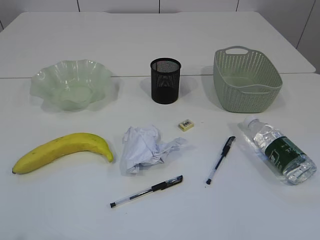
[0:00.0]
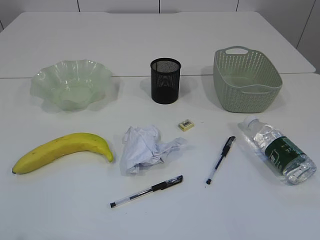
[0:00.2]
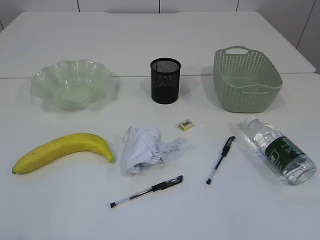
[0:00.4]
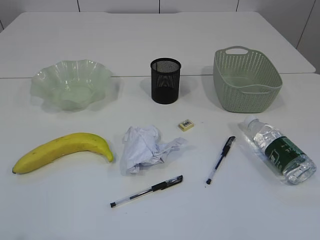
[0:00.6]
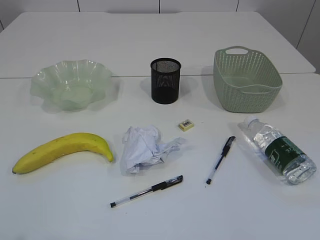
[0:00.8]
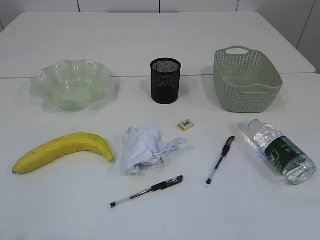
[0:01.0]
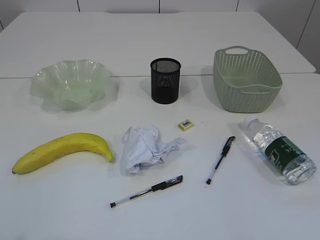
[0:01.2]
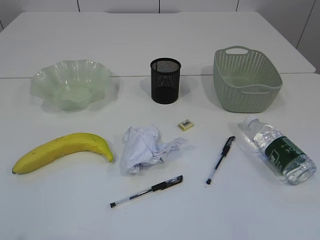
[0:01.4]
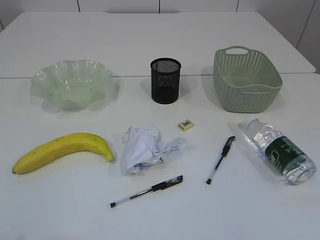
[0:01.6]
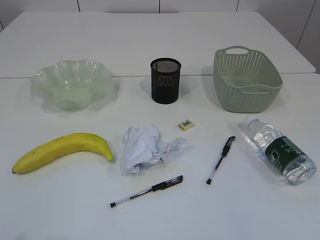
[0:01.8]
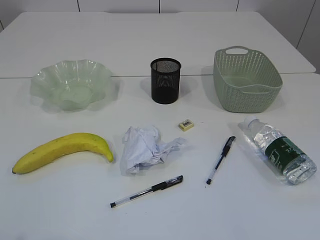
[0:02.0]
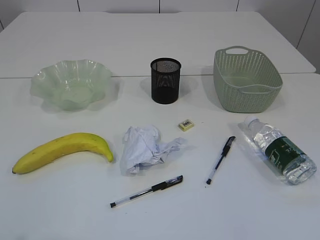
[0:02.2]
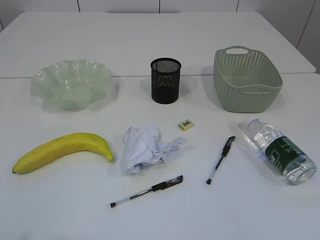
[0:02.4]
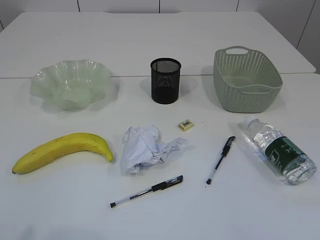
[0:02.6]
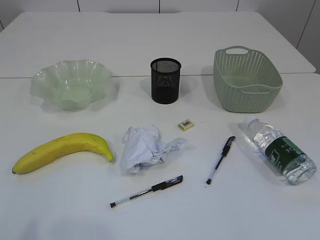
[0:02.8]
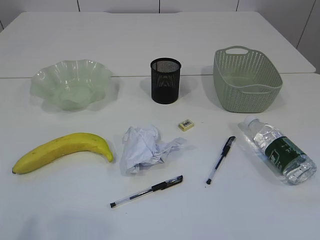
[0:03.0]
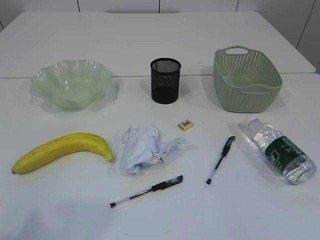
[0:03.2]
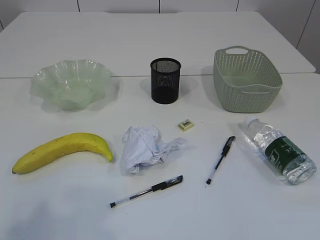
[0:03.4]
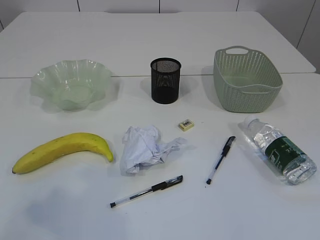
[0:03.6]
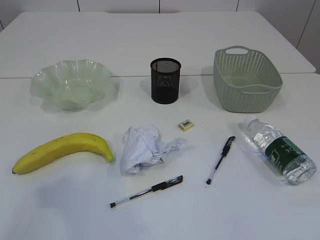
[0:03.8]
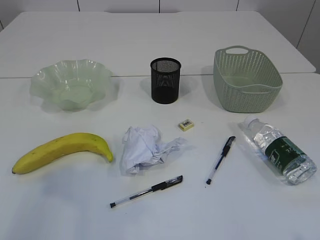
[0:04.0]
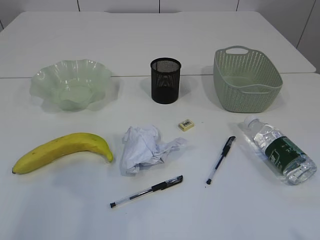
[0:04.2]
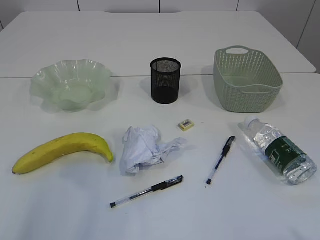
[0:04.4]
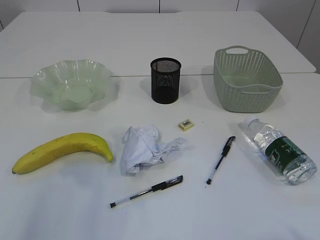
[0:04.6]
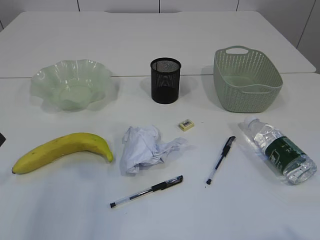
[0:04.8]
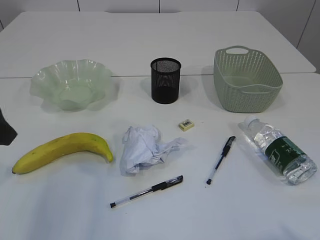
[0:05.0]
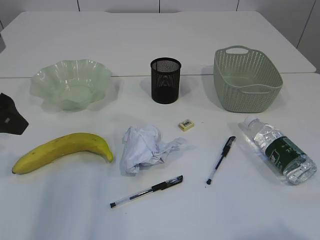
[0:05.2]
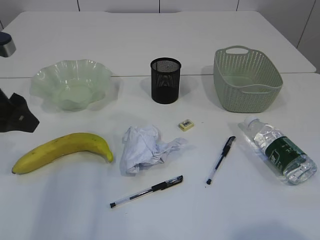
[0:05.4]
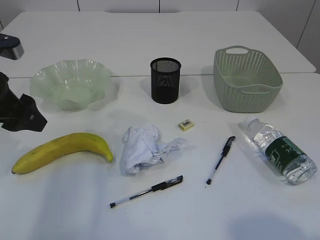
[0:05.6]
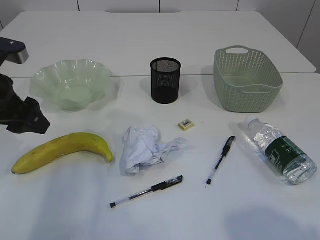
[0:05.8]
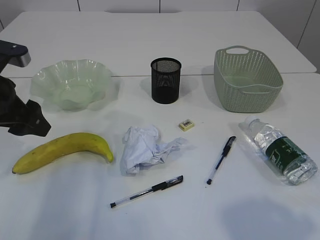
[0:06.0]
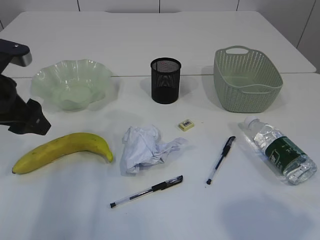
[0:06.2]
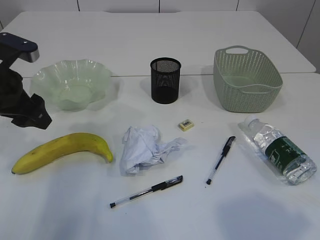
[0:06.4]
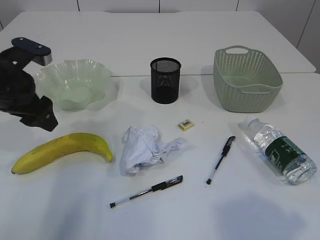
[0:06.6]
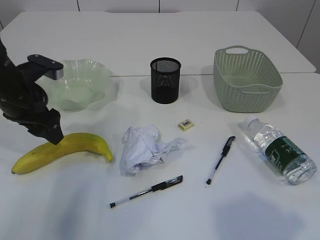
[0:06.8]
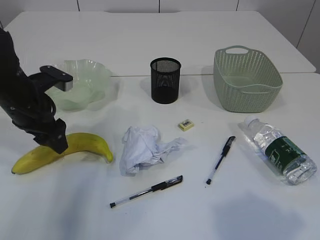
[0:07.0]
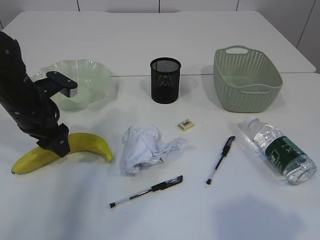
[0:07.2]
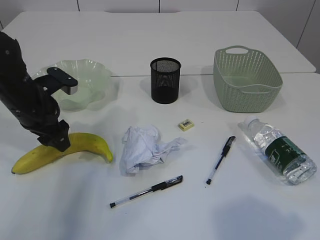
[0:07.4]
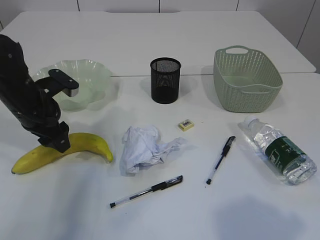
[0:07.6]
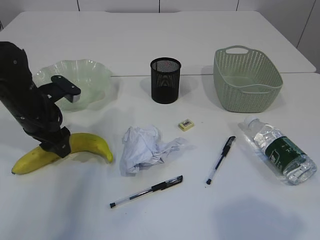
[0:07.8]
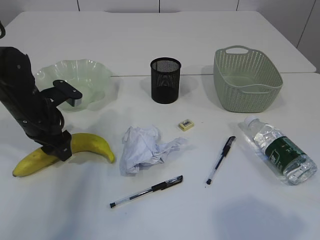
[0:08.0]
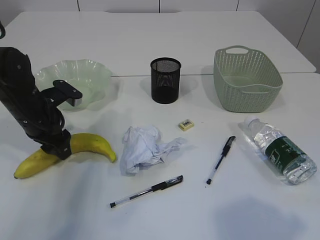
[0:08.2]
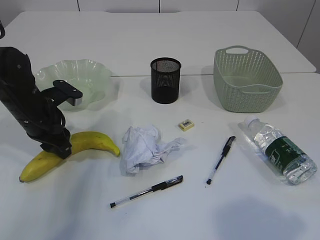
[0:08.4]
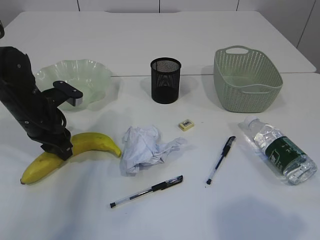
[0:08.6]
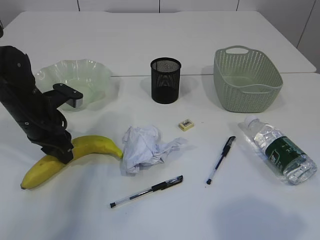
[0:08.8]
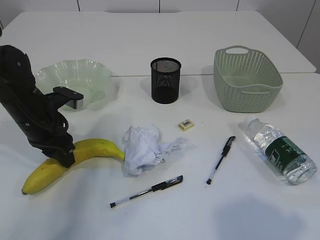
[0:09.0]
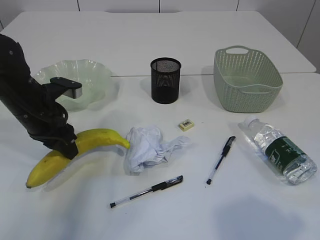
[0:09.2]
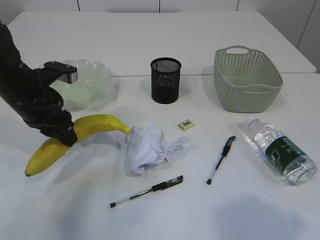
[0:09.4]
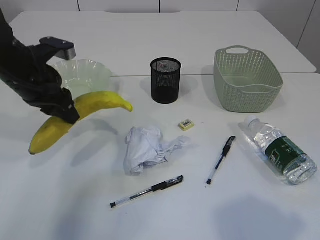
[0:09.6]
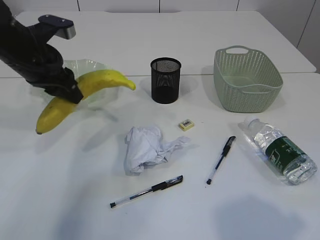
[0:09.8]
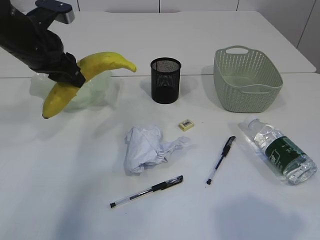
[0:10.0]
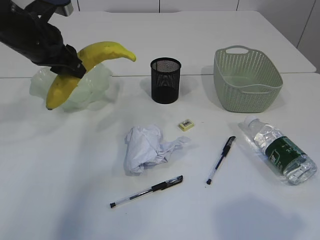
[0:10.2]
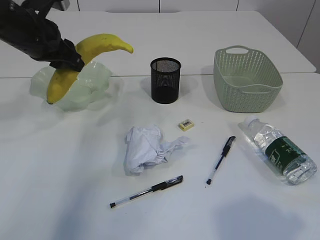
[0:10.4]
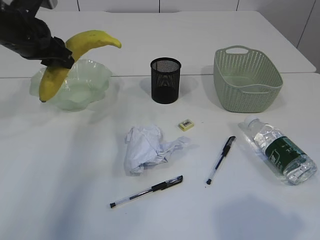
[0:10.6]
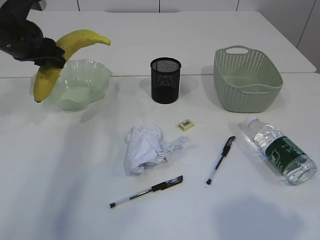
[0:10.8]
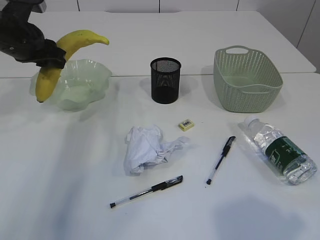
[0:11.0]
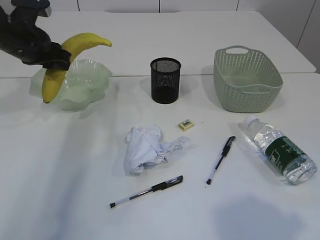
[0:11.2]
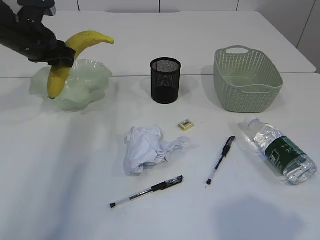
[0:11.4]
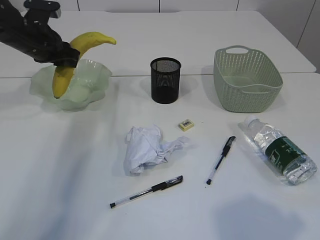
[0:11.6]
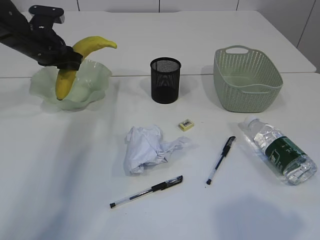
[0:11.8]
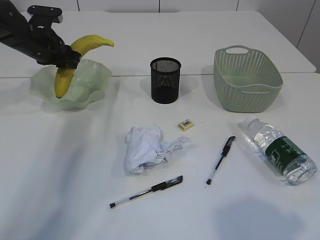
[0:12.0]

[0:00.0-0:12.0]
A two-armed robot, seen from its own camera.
0:03.0 to 0:04.4: The left gripper heads forward, covering approximately 15 cm.
0:04.4 to 0:06.0: The right gripper shifts roughly 5 cm forward, while the left gripper moves forward and downward, roughly 15 cm.
0:06.0 to 0:07.6: The left gripper moves downward and forward, roughly 10 cm.
0:07.6 to 0:09.0: The left gripper closes up.
0:09.0 to 0:10.4: The left gripper travels upward by some 15 cm.
0:10.4 to 0:12.0: The left gripper moves forward and downward, approximately 10 cm.

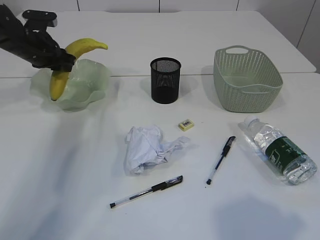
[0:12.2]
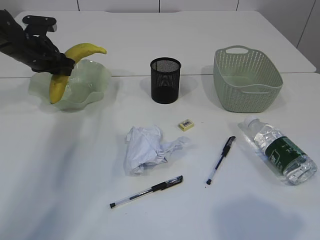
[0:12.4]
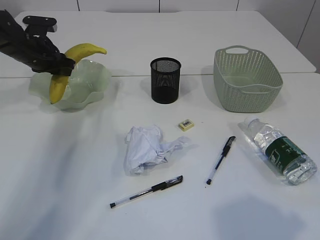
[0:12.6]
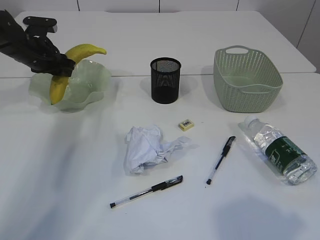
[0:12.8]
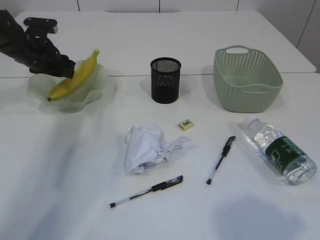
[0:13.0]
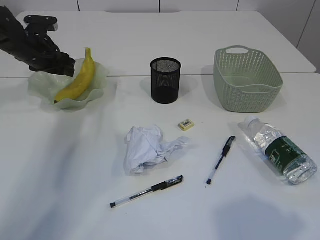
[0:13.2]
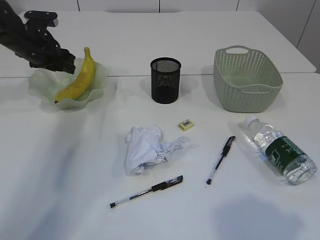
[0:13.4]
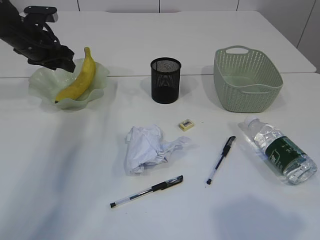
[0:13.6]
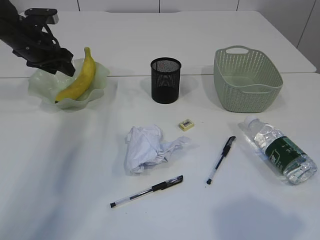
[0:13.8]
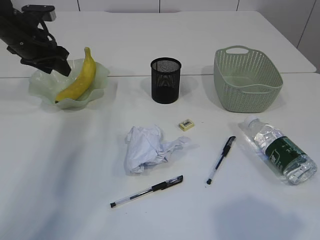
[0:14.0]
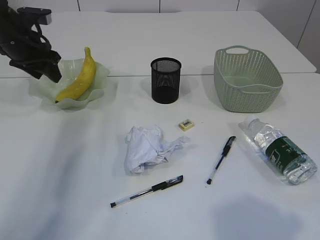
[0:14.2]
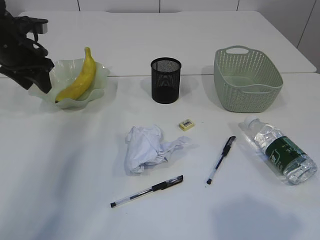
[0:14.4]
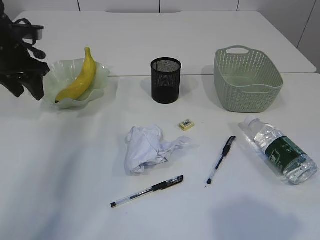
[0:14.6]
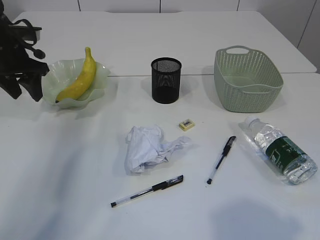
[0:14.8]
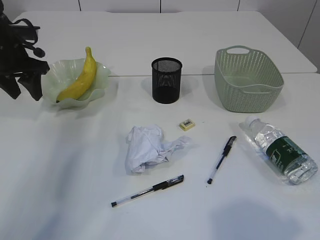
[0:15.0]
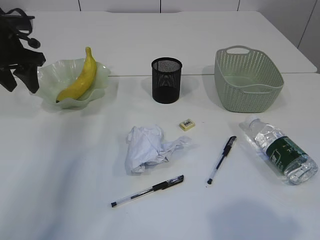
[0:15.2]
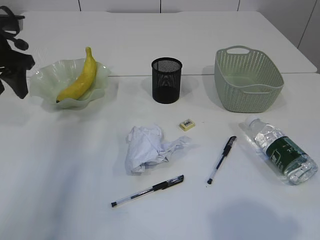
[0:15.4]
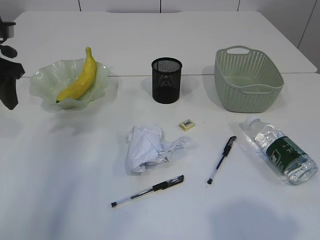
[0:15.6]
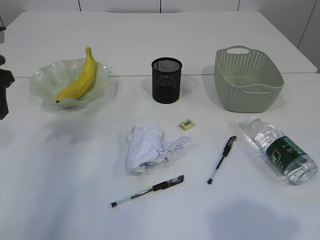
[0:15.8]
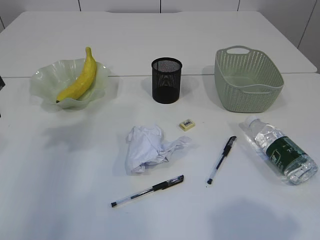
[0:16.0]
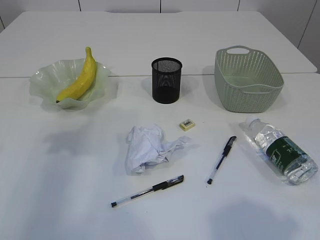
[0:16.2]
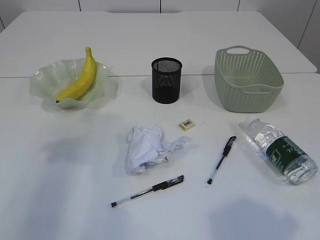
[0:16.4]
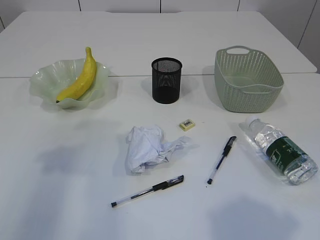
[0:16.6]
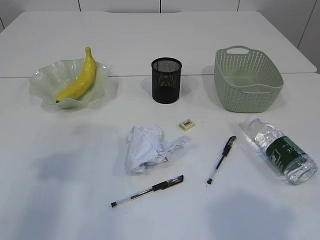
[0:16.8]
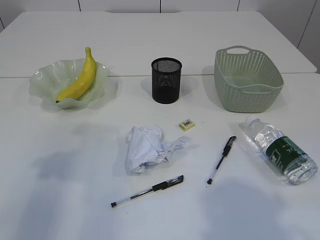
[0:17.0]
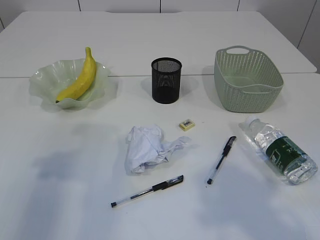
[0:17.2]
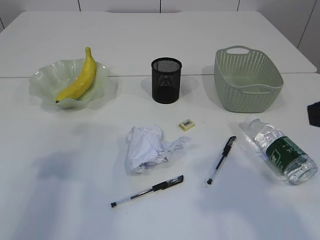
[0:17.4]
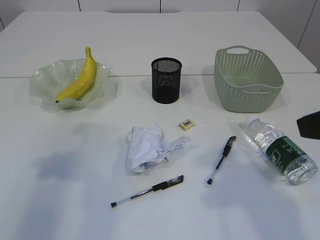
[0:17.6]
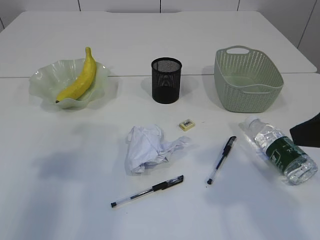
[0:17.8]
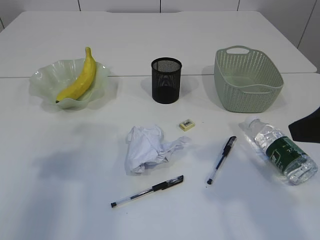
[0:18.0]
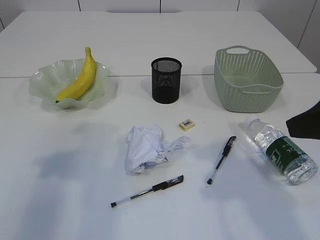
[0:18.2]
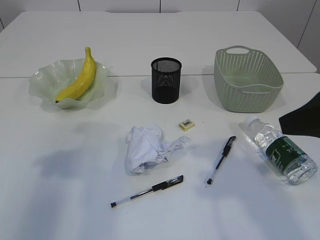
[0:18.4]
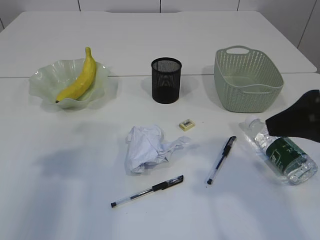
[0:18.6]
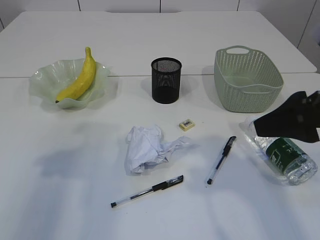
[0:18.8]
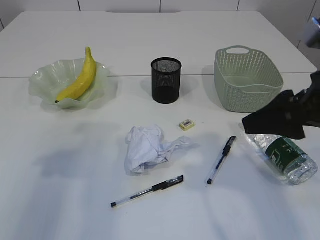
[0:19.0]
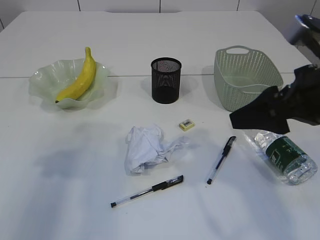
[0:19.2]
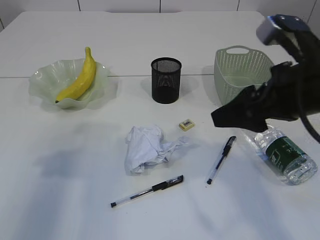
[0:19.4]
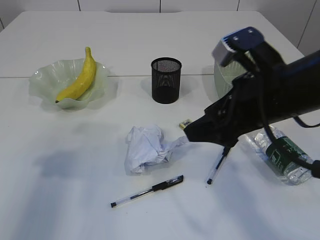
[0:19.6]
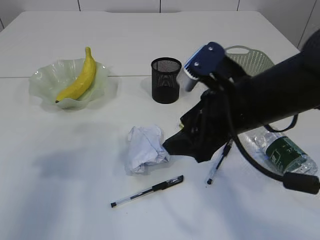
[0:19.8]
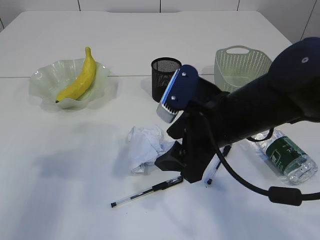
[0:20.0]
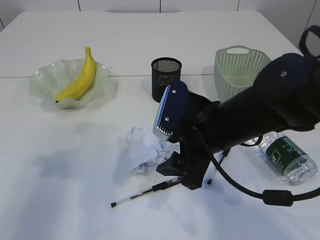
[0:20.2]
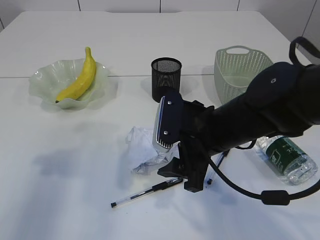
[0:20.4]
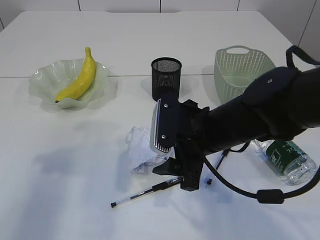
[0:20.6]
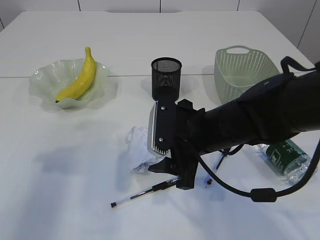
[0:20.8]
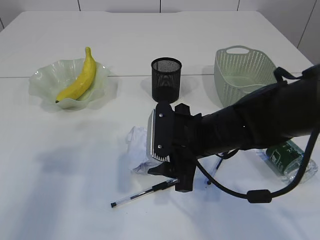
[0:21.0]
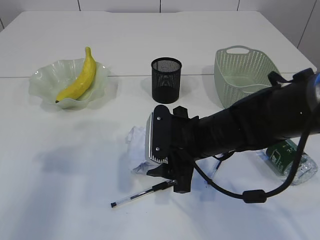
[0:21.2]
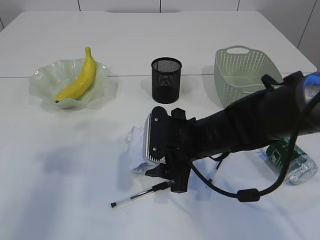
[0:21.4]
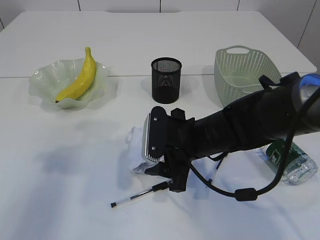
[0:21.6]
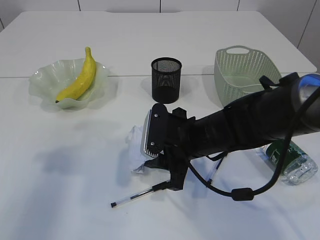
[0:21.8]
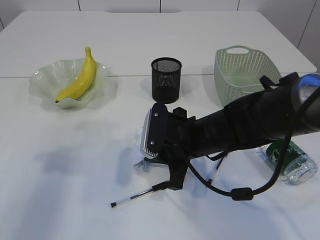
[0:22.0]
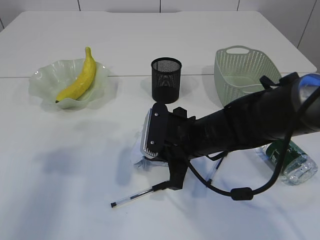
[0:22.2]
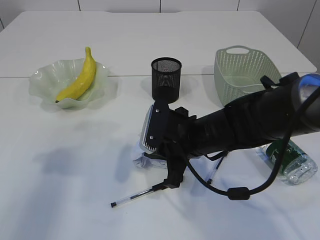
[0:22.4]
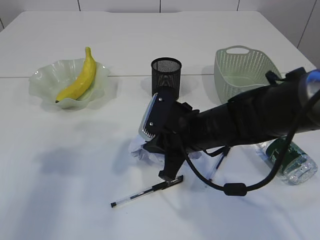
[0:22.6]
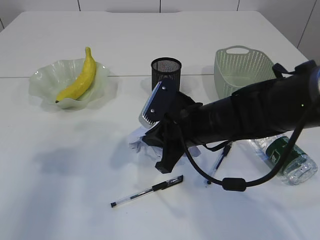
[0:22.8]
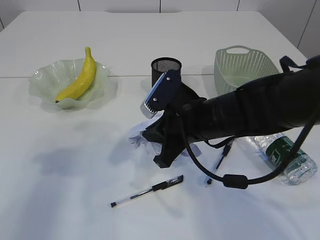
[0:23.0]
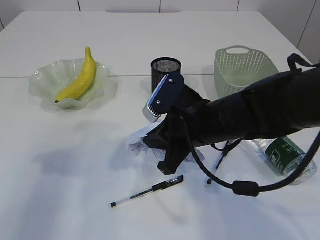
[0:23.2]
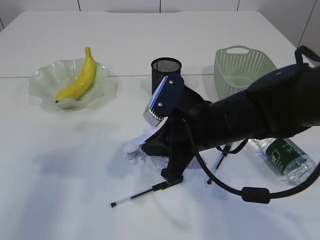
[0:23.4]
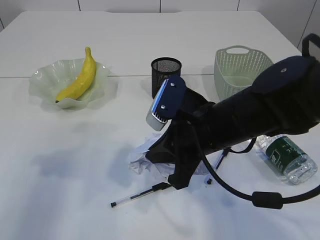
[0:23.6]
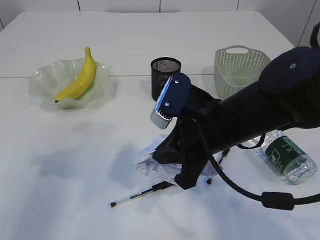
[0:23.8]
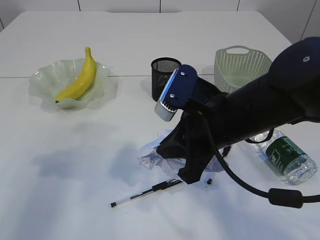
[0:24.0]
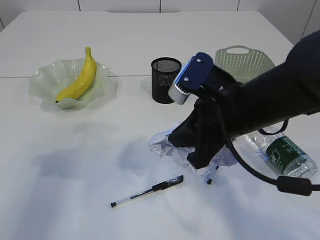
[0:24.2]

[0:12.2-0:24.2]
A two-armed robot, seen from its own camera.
Step, 0:12.2 to 0:14.4: Place the banana in the plate.
Step, 0:14.6 to 0:23.0: Pick up the waste paper.
0:12.2 to 0:13.8: The grippers move only a little.
0:13.8 to 0:15.2: The left gripper shifts some 5 cm backward.
0:15.2 to 0:16.6: The left gripper moves backward, about 20 cm.
0:16.6 to 0:18.2: The right gripper travels forward by approximately 10 cm.
0:18.2 to 0:19.8: The right gripper moves to the left, forward and downward, about 15 cm.
0:19.8 to 0:21.2: The right gripper moves downward, about 10 cm.
0:21.2 to 0:22.6: The right gripper closes up.
0:22.6 to 0:24.2: The right gripper is displaced upward by approximately 10 cm.
